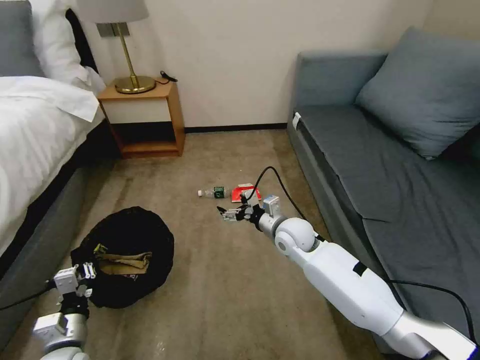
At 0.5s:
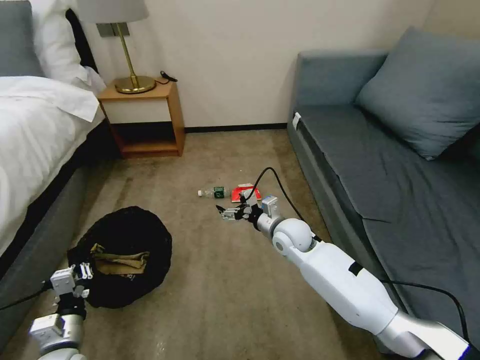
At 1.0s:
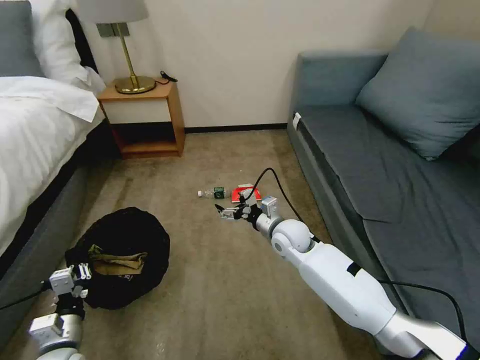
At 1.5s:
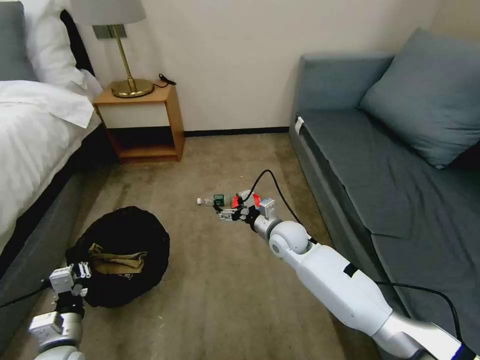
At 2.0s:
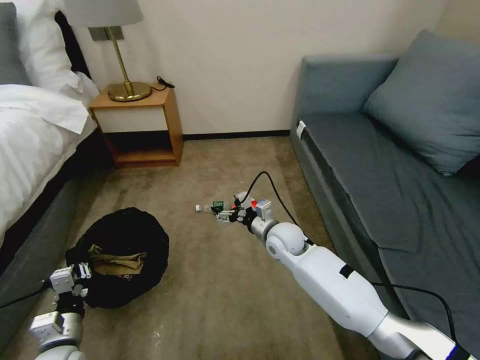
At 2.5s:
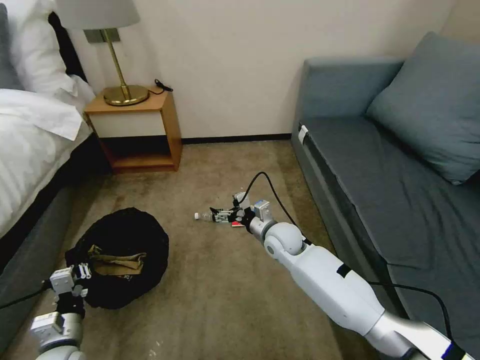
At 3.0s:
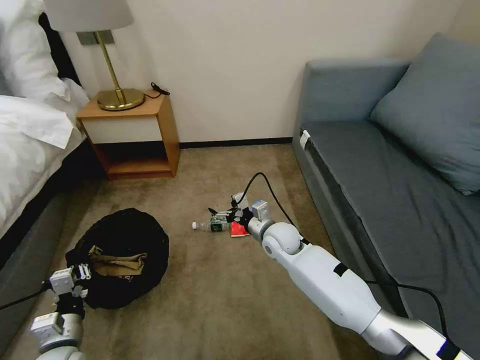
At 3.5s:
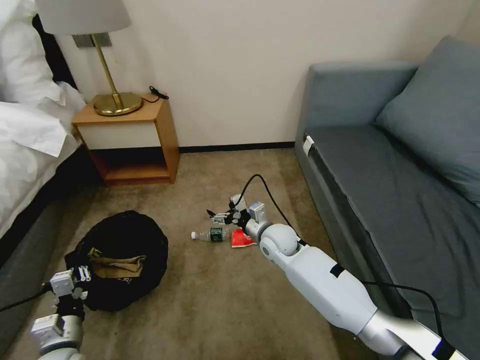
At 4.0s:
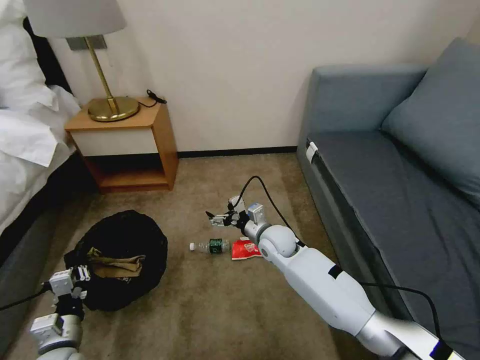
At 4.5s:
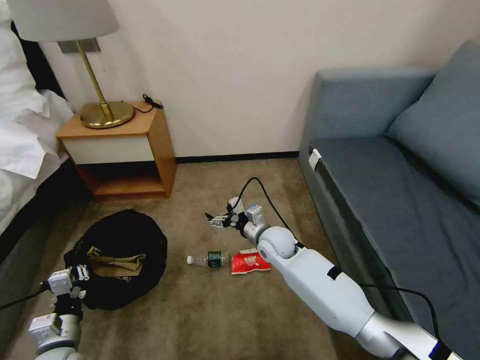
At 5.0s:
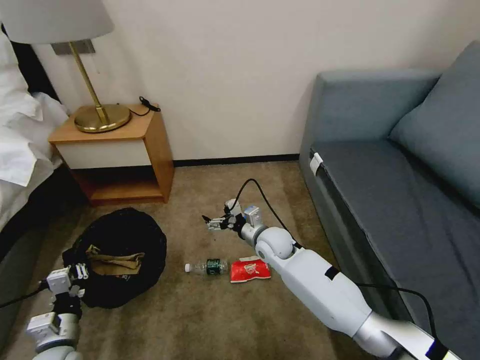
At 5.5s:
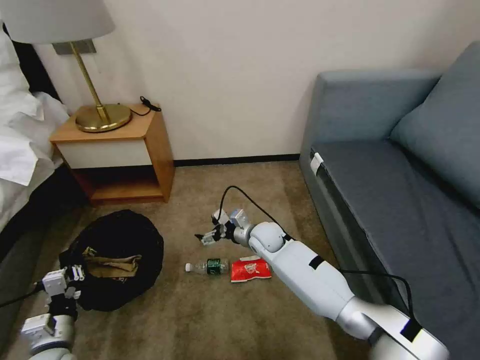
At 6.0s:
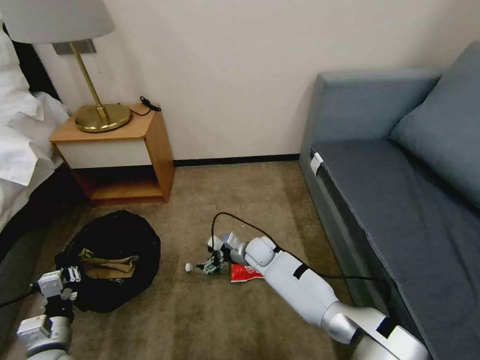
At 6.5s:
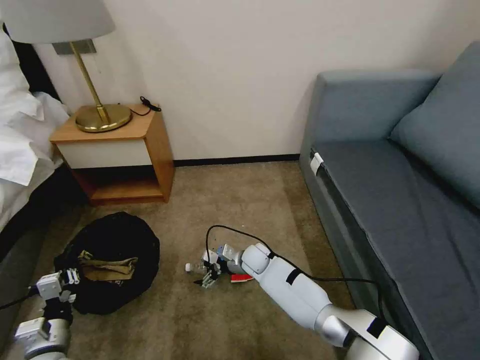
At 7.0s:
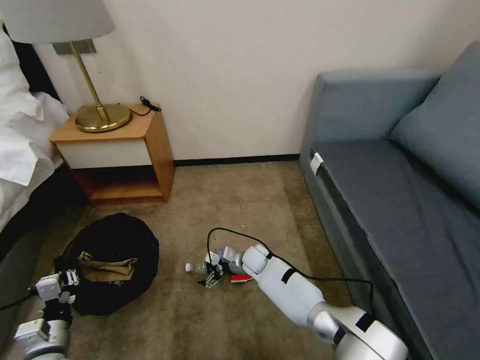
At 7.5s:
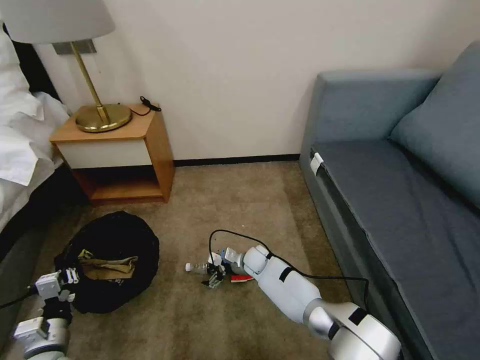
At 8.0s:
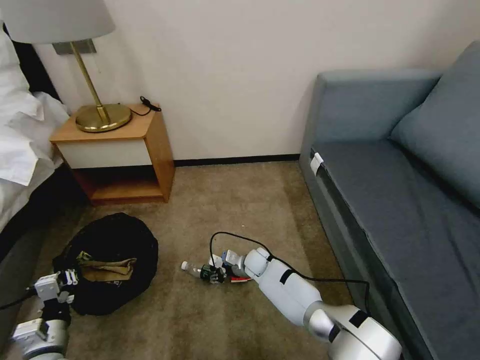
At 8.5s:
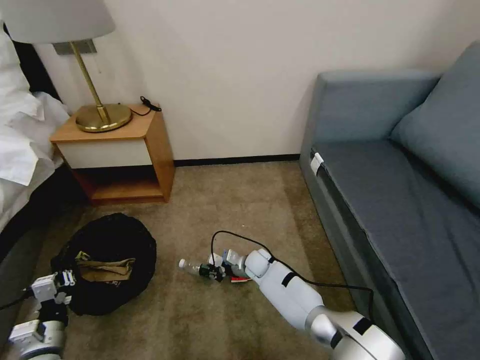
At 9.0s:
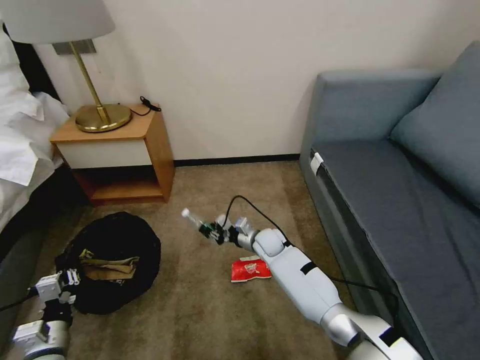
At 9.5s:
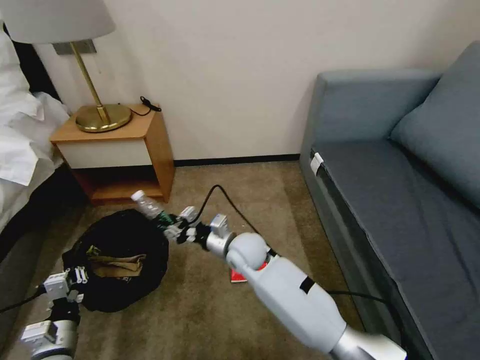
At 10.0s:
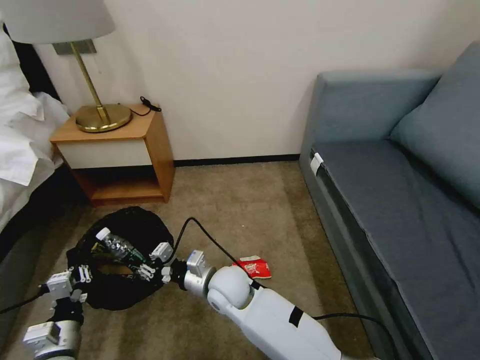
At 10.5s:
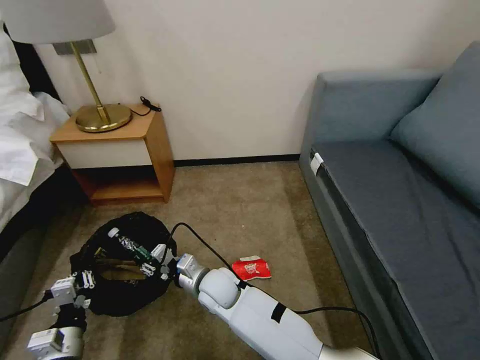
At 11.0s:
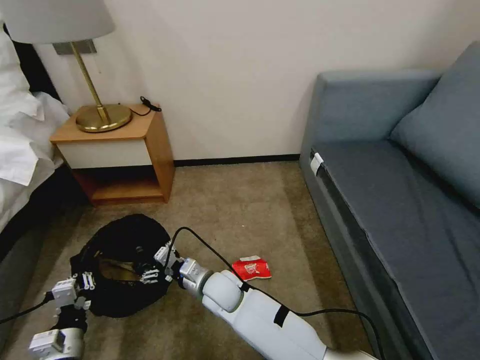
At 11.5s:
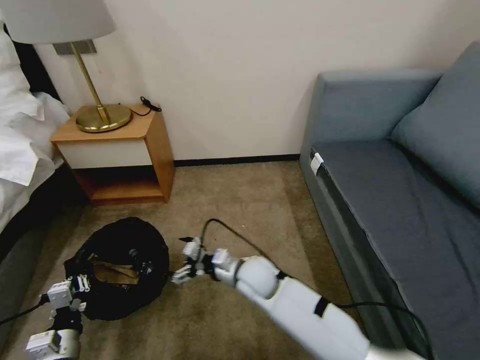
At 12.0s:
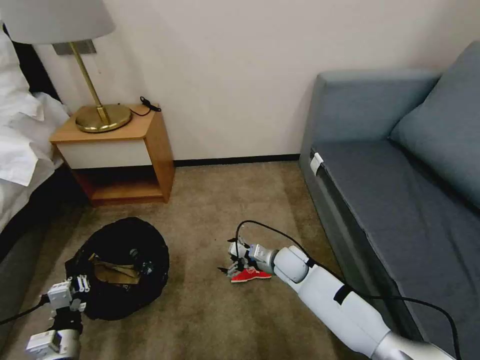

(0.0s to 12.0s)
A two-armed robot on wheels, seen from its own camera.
Task of the whole recording: Pick up the trash bin, then pick up the garbage on the floor and place it into the trash bin.
4.0s - 6.0s: The right gripper heads downward, covering approximately 10 cm.
6.0s - 8.0s: The right gripper goes about 5 cm downward, and closes its fingers.
8.0s - 10.0s: The right gripper goes approximately 25 cm upward, backward and to the left.
10.0s - 12.0s: The right gripper is displaced to the right and forward by roughly 20 cm, and opens its fingers.

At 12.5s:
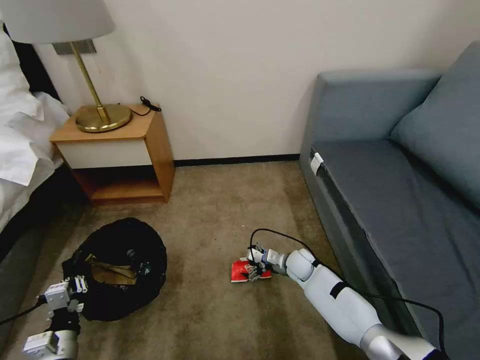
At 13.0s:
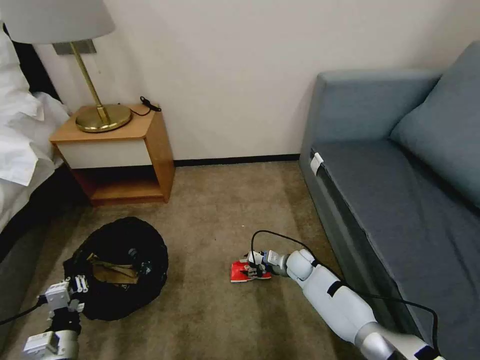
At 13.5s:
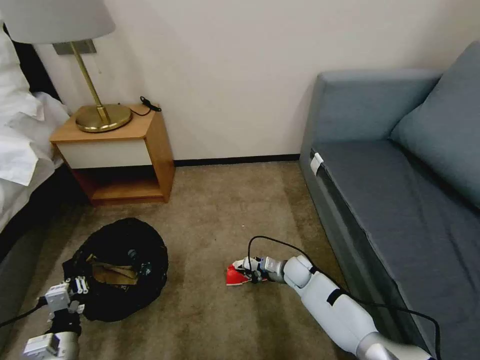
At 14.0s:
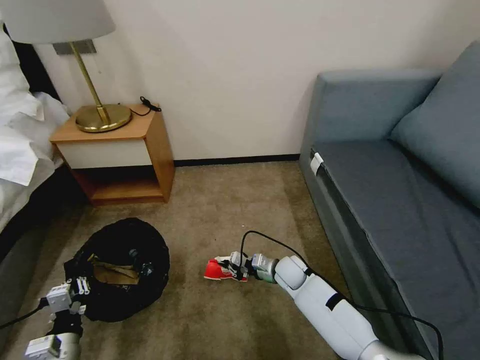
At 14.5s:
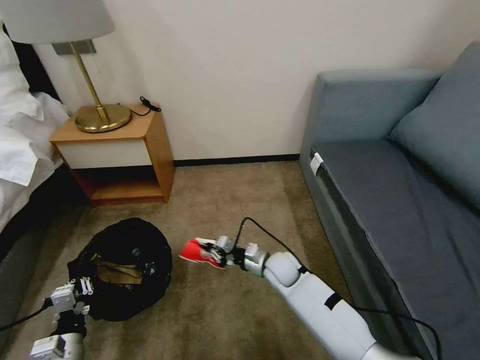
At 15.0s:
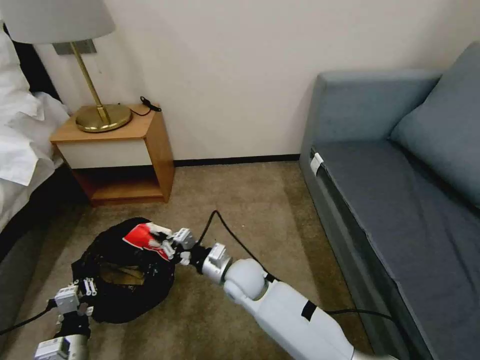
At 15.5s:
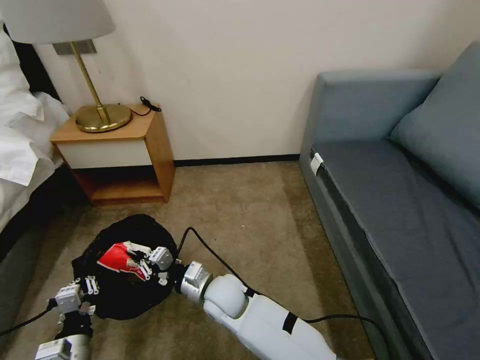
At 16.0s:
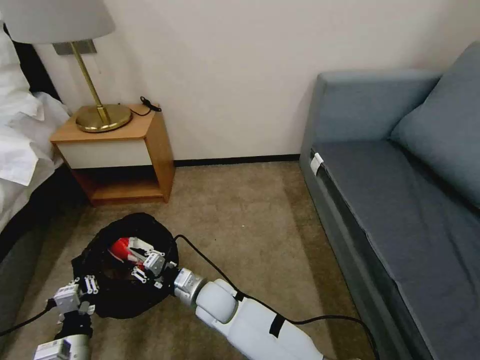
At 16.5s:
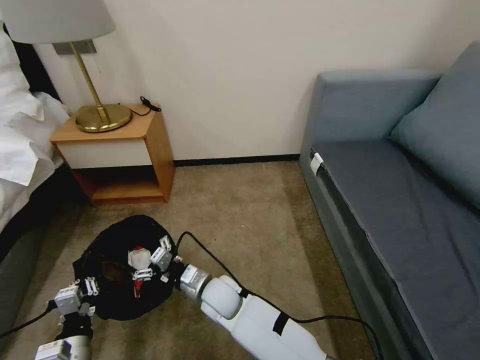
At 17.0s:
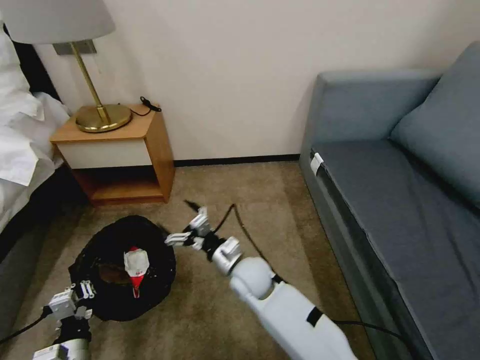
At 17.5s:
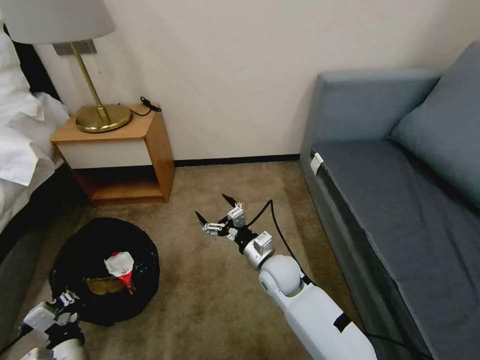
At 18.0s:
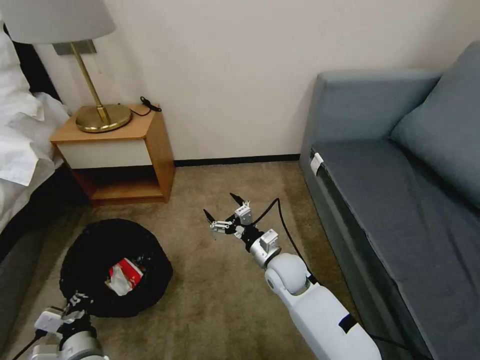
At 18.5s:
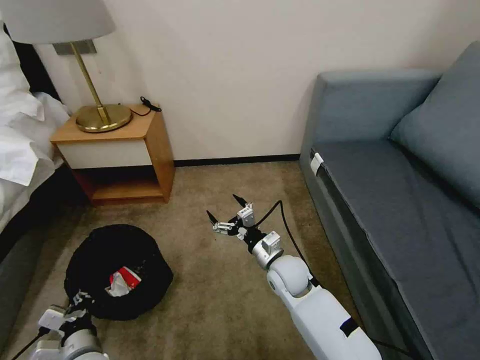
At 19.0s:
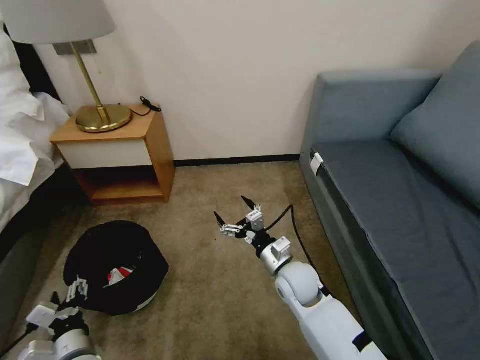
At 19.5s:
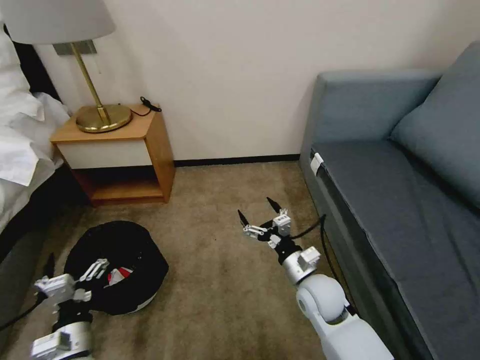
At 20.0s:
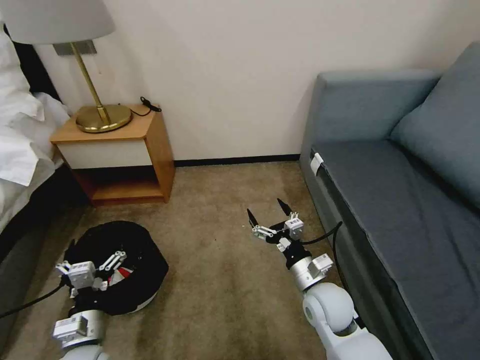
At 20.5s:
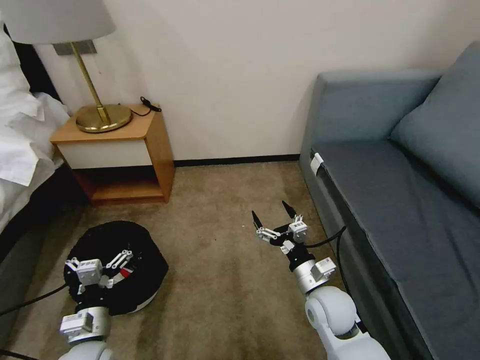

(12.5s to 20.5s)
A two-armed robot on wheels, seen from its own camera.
Task of the whole recording: Pick up the trash bin, then pick up the garbage on the floor and place it into the trash bin.
12.5s - 14.5s: The right gripper shifts roughly 10 cm to the left and upward, and closes its fingers.
14.5s - 16.5s: The right gripper shifts about 20 cm to the left and backward, and opens.
16.5s - 18.5s: The right gripper is displaced to the right by approximately 15 cm.
18.5s - 20.5s: The left gripper opens up, while the right gripper moves backward and to the right, approximately 10 cm.

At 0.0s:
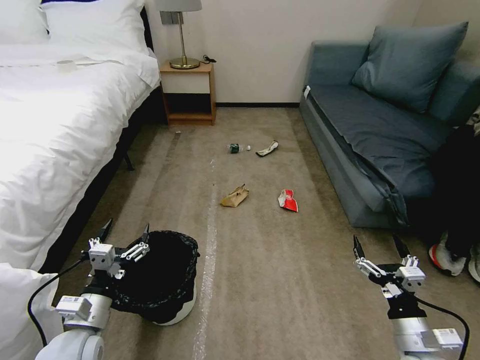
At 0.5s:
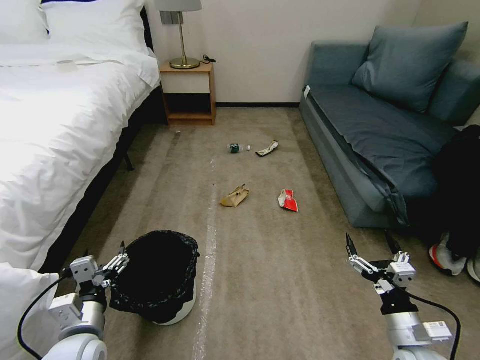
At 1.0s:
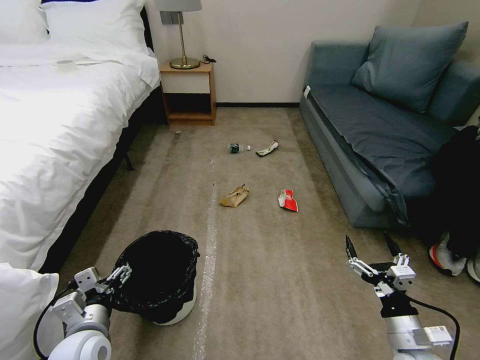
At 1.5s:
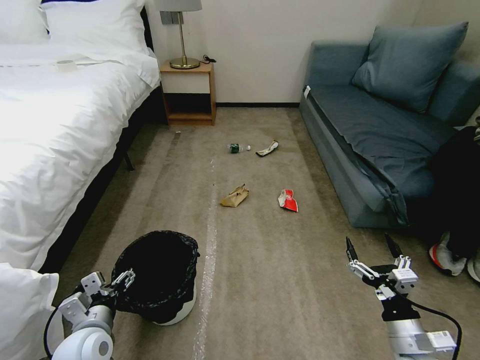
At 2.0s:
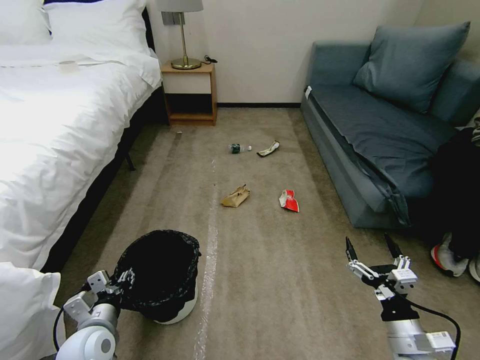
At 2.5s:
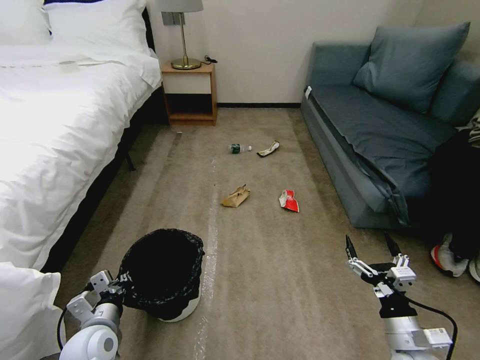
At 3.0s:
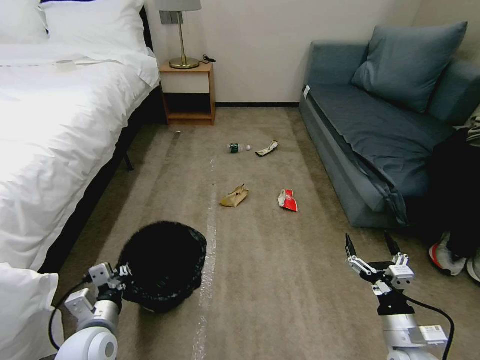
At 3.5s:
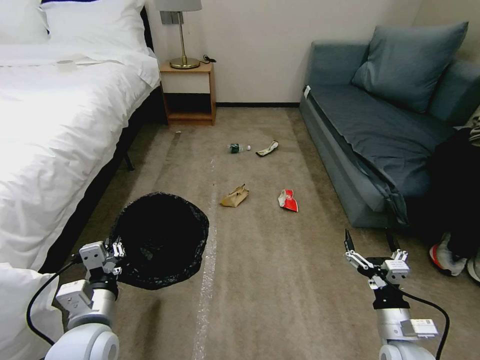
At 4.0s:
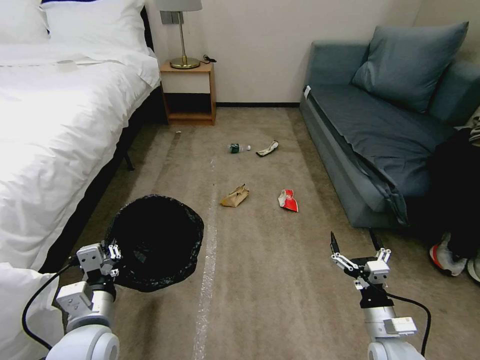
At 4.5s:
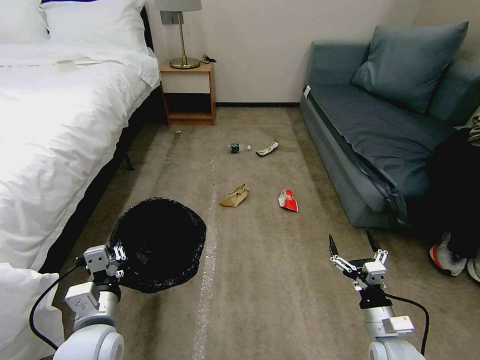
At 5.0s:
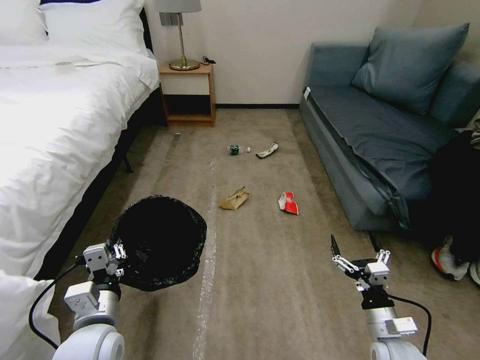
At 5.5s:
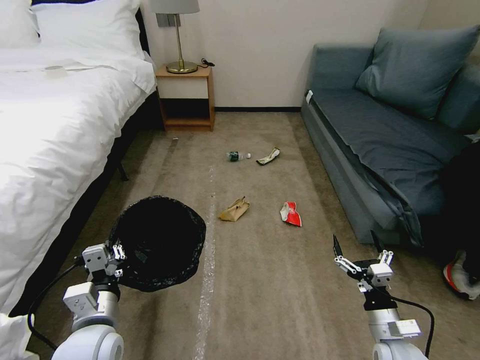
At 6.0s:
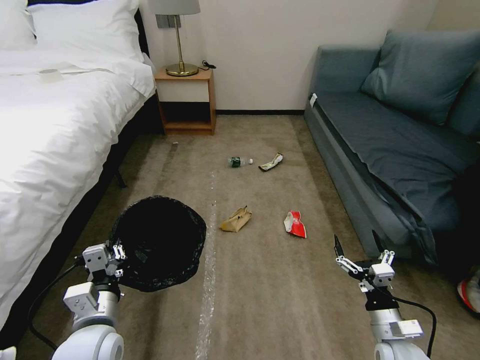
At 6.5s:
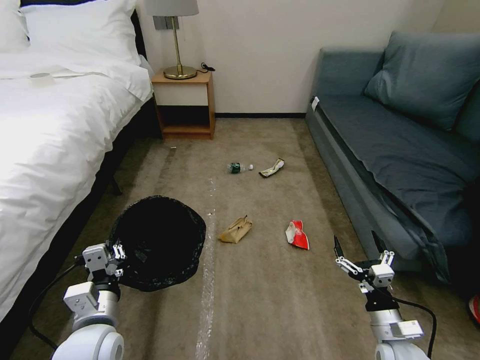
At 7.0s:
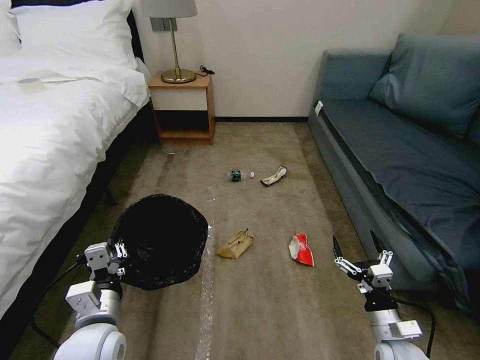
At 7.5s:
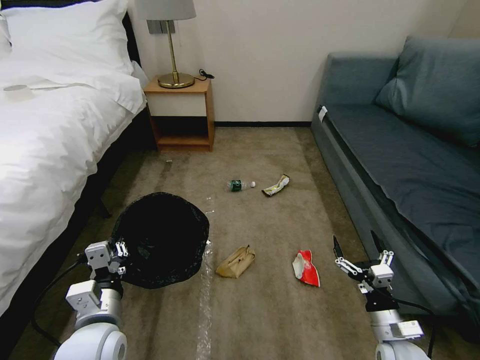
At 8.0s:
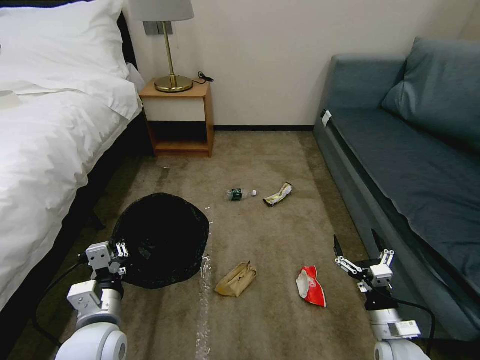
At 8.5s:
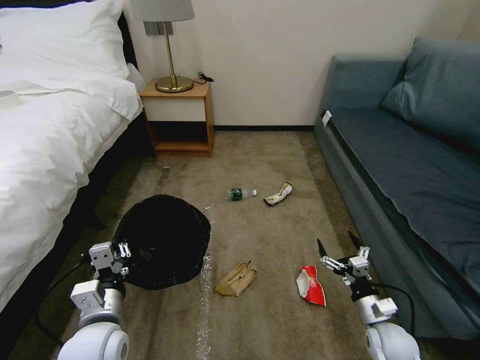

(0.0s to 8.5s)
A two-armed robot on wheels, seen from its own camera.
Task of the whole recording: Pick up the trash bin, then pick up the garbage on the floor and place it into the trash bin.
2.0s - 4.0s: The left gripper moves upward, approximately 10 cm, and closes, while the right gripper moves some 5 cm.
6.5s - 8.5s: The right gripper ends up about 5 cm from where it was.
